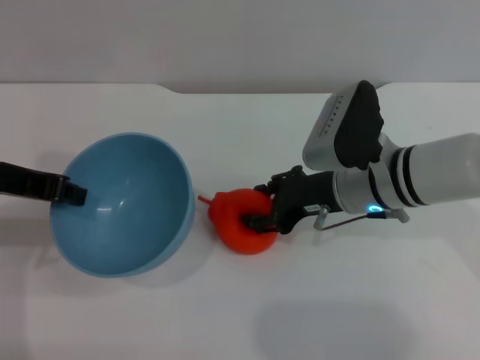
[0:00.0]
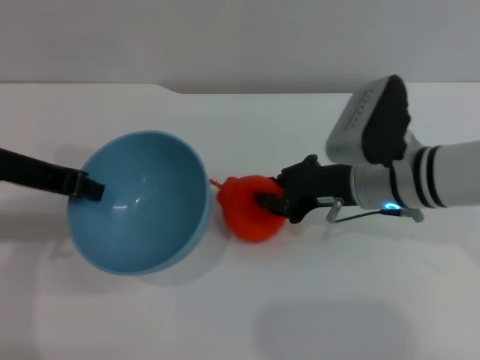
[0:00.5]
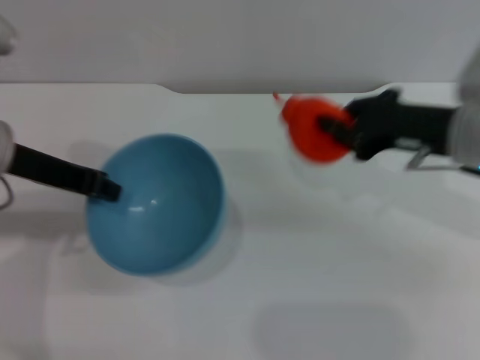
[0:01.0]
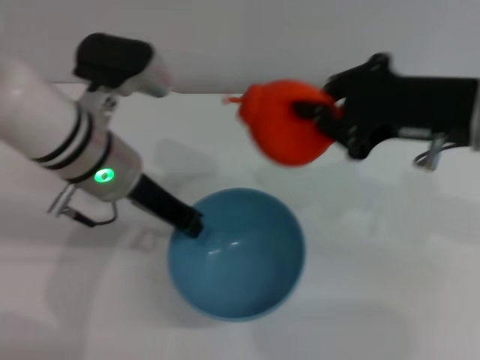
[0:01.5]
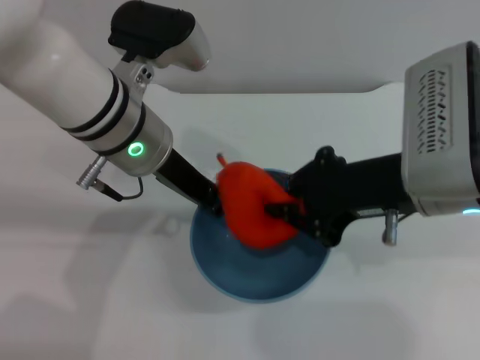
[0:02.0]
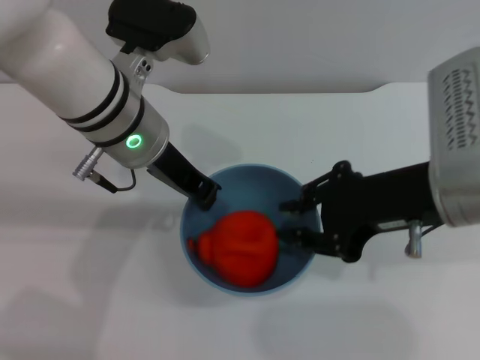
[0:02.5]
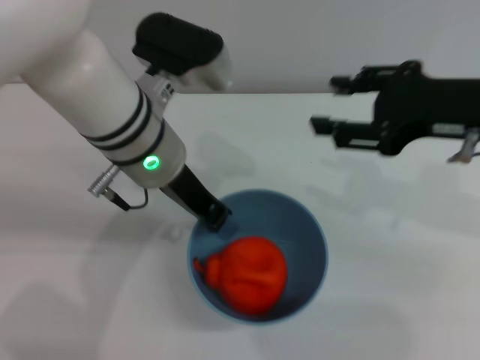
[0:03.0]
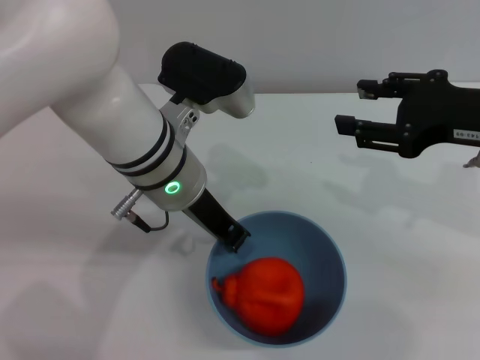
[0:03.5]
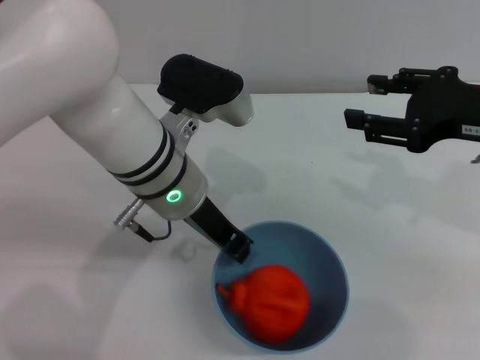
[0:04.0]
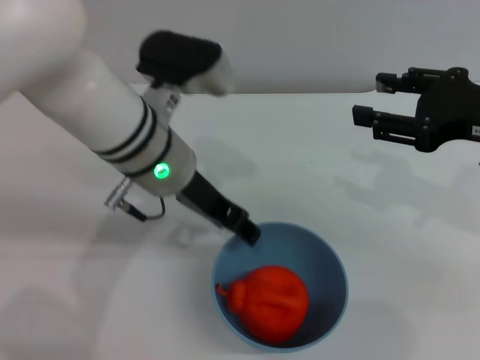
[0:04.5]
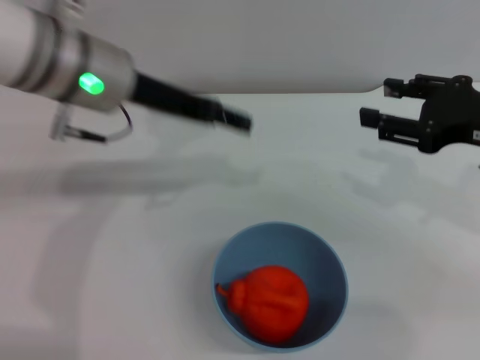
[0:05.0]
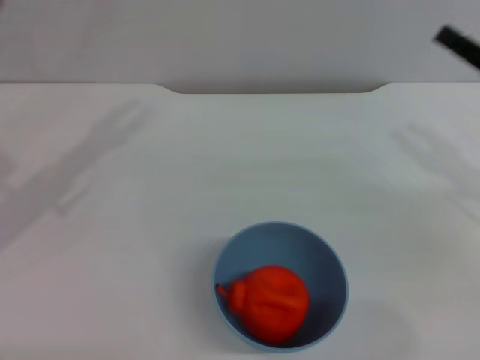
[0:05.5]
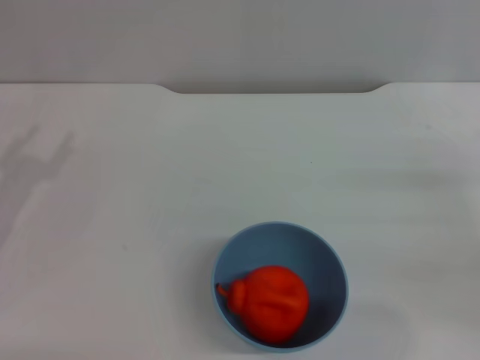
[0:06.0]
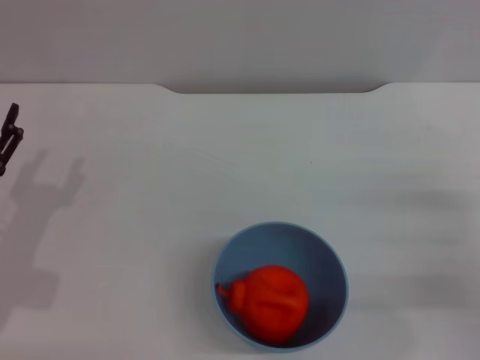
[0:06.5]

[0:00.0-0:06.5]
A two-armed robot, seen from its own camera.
Task of the whole recording: put the orange into the blue bowl and pour it out repeatedly.
Step, 0:01.0 to 0:02.5: Place the orange into the bowl.
Step, 0:03.0 to 0:04.0: Place the bowl on the table.
0:00.0 to 0:02.0: The right gripper goes some 10 cm upward and backward, and closes up, while the left gripper heads to the right, covering approximately 15 cm.
0:02.0 to 0:04.5: The left gripper opens its fingers. Meanwhile the right gripper moves to the right, some 10 cm, and opens its fingers.
0:04.5 to 0:06.5: The right gripper goes roughly 15 cm downward, while the left gripper goes some 25 cm to the left, downward and backward.
